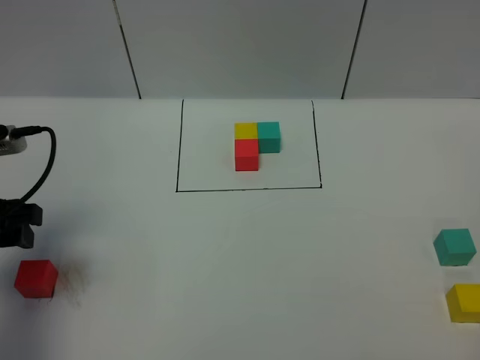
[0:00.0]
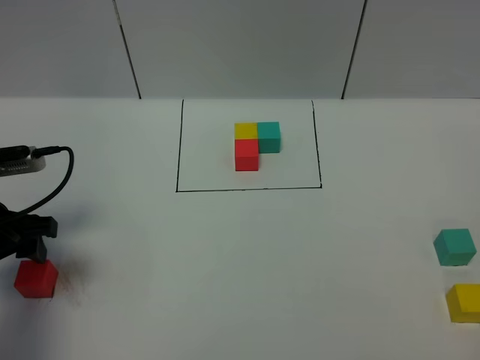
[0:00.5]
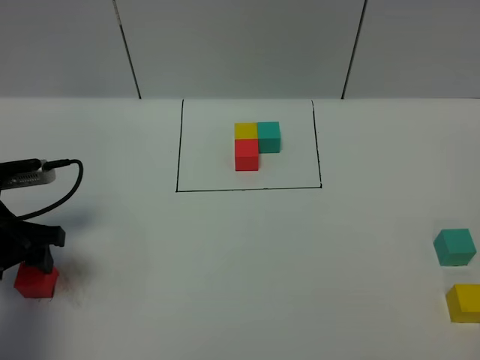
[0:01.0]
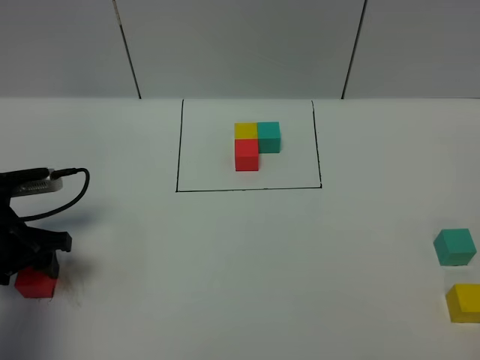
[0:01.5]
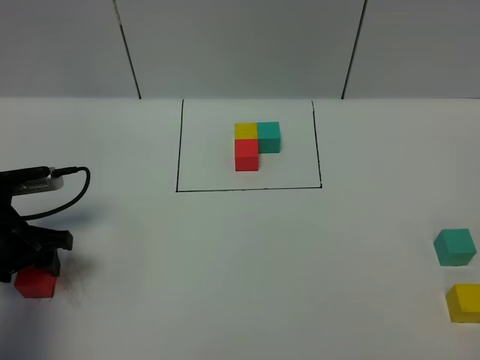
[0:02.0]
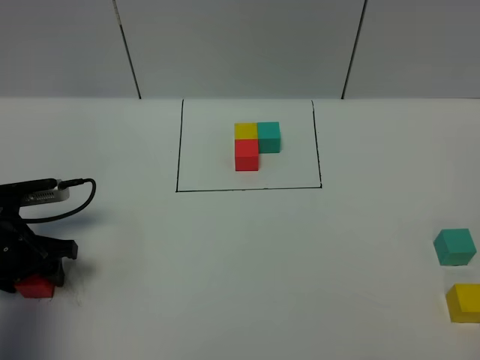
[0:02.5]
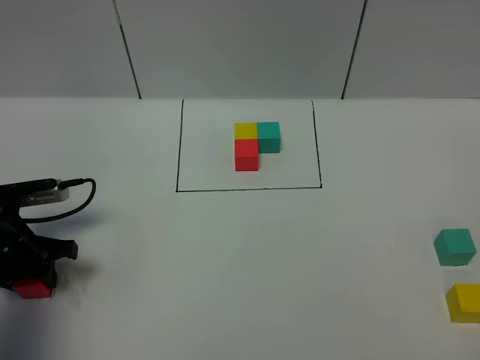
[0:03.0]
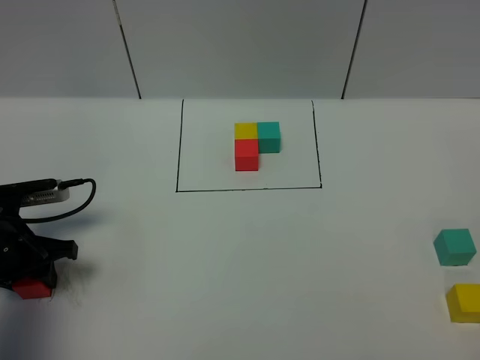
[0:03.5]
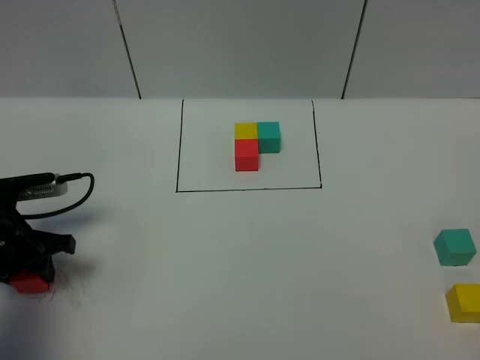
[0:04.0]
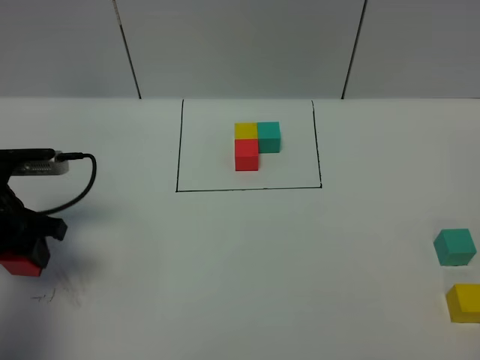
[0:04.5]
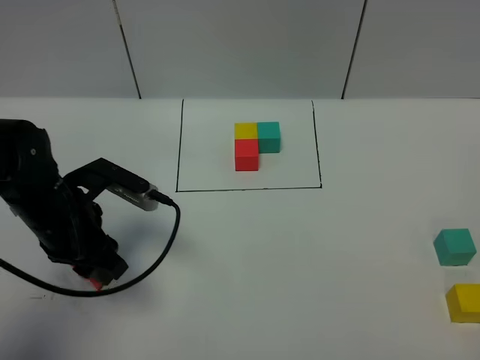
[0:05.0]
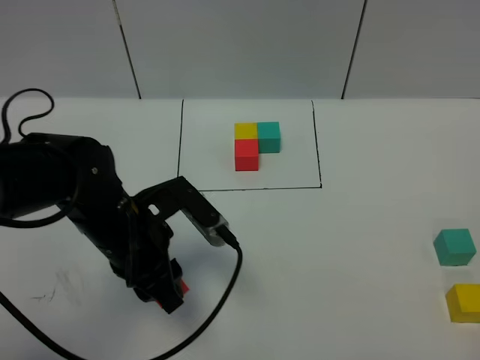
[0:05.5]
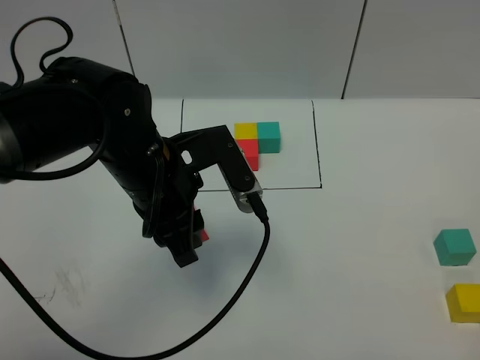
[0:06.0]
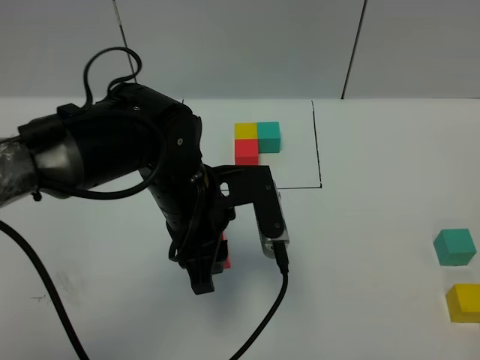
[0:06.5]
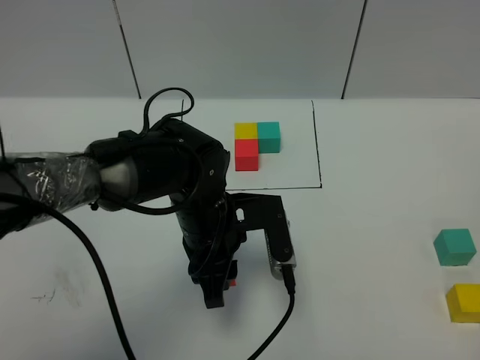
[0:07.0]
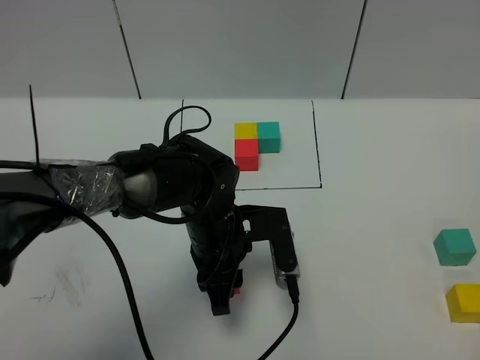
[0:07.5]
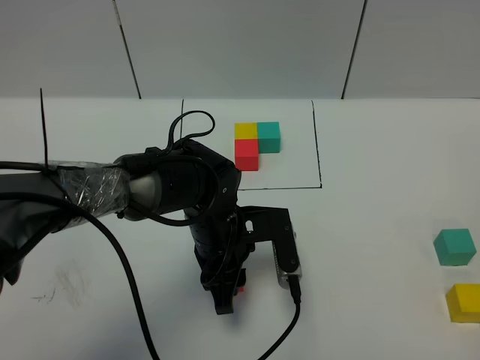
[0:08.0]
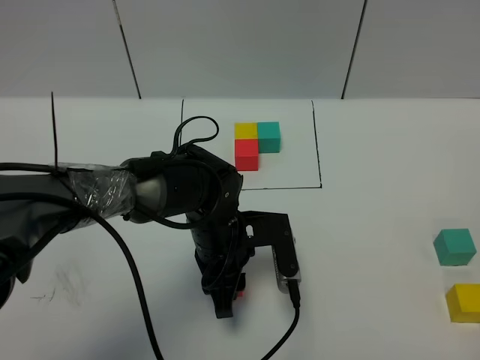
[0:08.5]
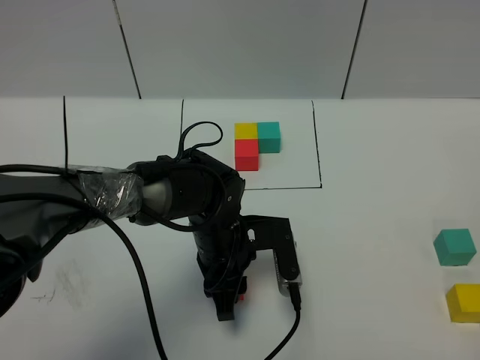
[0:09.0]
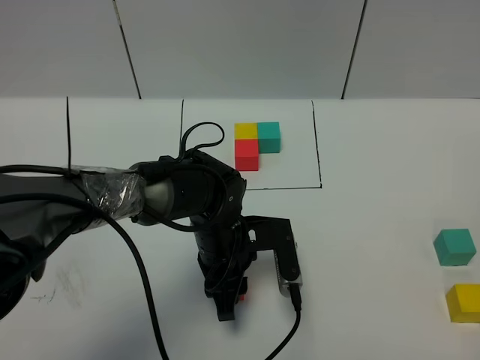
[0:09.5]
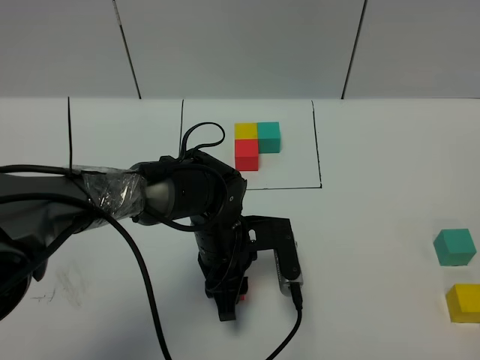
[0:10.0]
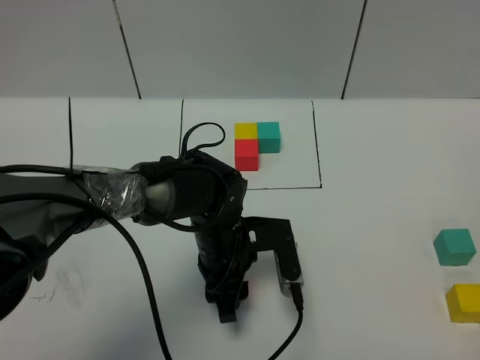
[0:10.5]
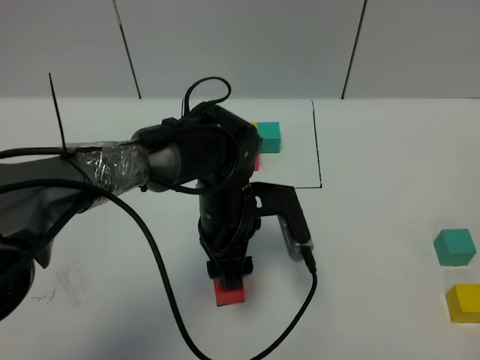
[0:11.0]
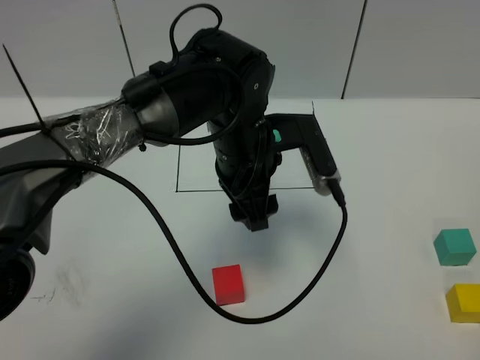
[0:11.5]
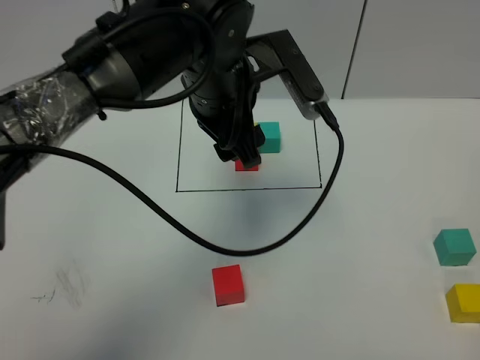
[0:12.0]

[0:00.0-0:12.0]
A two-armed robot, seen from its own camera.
Task of the whole recording: According to the building block template in front, assemble the scattered blocks together.
Step, 0:00.0 to 0:11.0: Put the red cube in the center of the table.
0:00.0 to 0:02.0: The left gripper heads downward, covering some 10 cm.
0:02.0 to 0:04.0: The grippers make only small movements.
0:04.0 to 0:06.0: The left gripper shifts about 25 cm to the right and upward.
0:06.0 to 0:08.0: The left gripper heads downward and to the right, covering about 15 cm.
0:08.0 to 0:10.0: The grippers make only small movements.
0:10.0 to 0:12.0: The left gripper shifts approximately 20 cm upward.

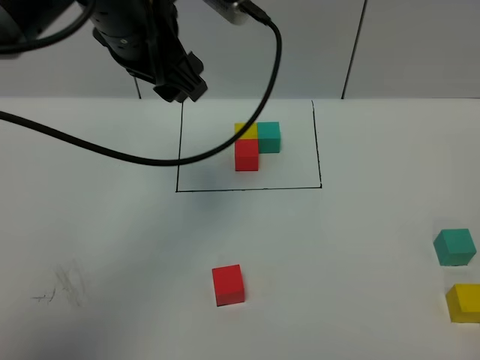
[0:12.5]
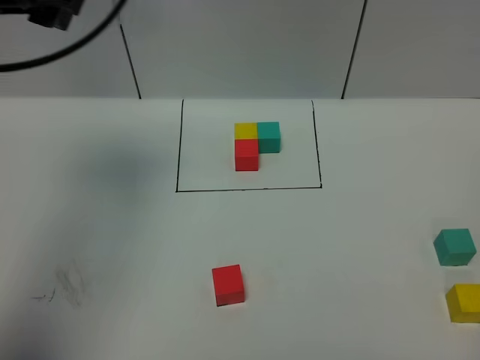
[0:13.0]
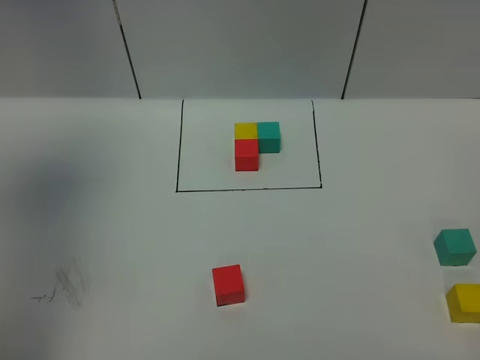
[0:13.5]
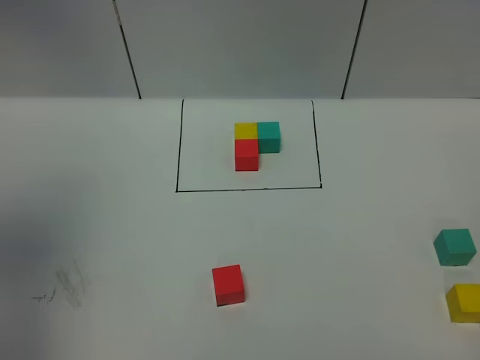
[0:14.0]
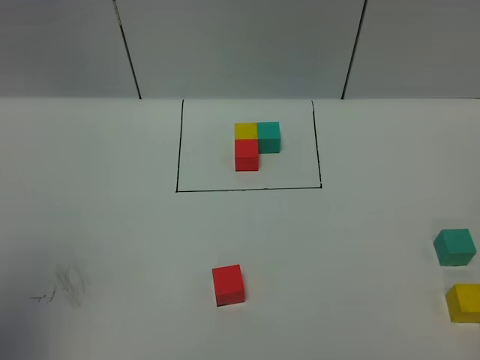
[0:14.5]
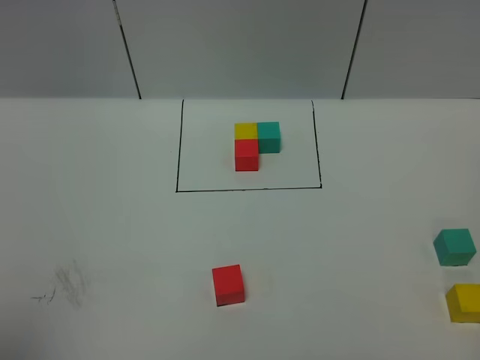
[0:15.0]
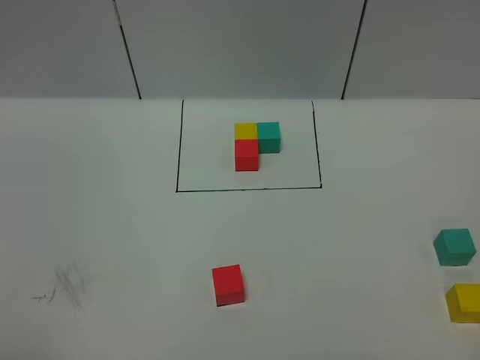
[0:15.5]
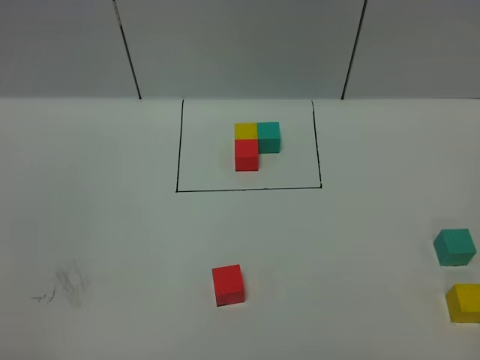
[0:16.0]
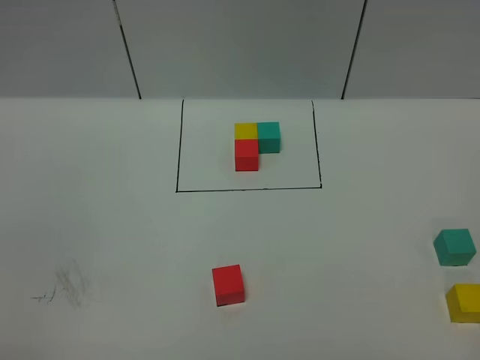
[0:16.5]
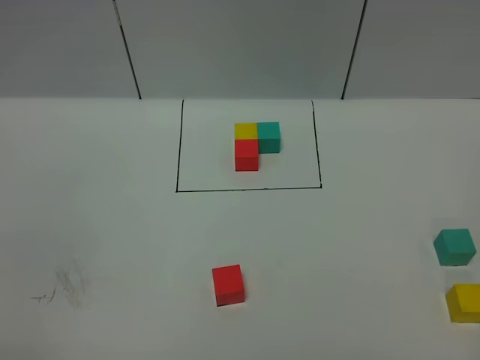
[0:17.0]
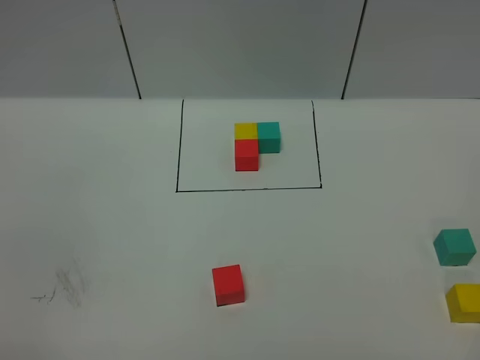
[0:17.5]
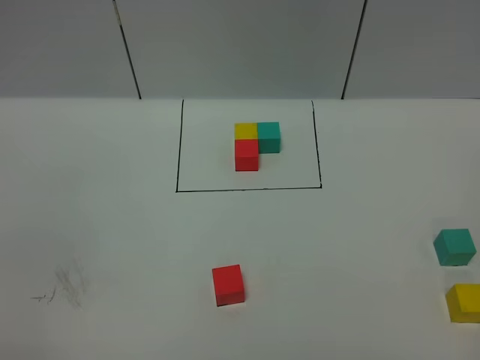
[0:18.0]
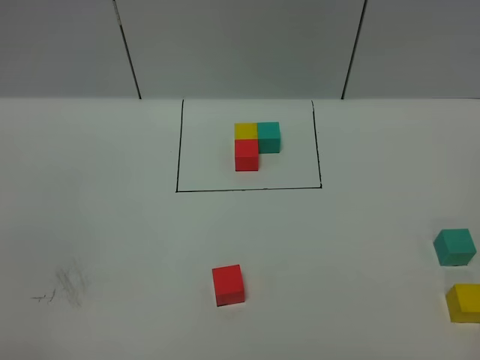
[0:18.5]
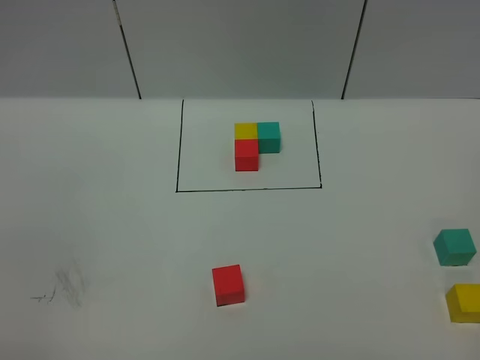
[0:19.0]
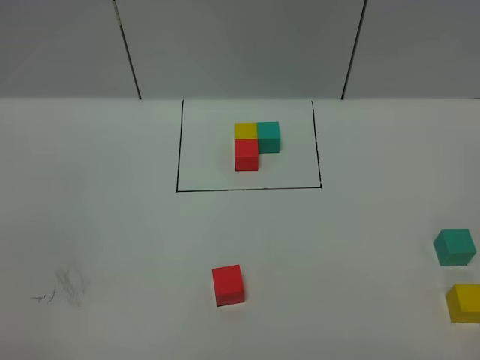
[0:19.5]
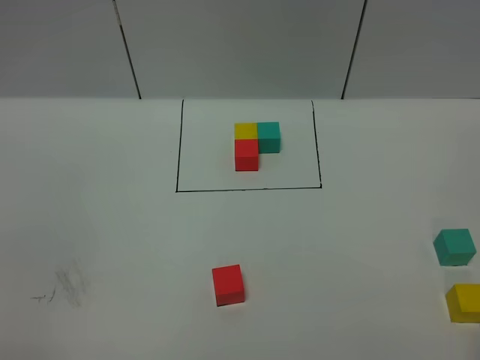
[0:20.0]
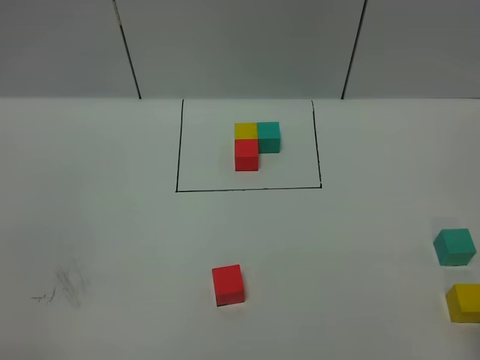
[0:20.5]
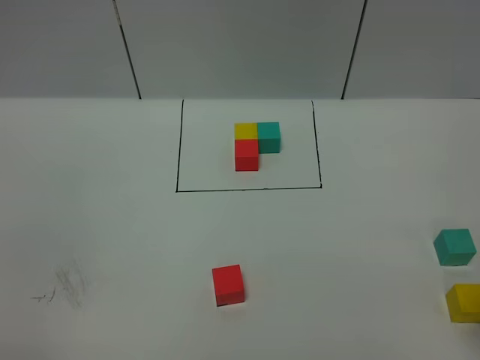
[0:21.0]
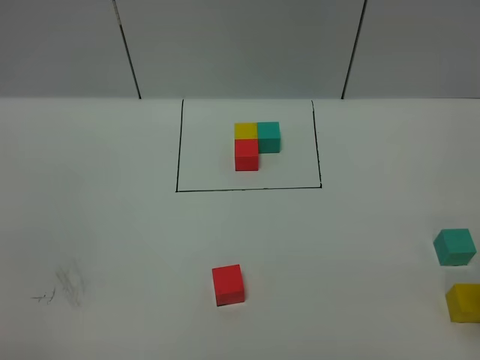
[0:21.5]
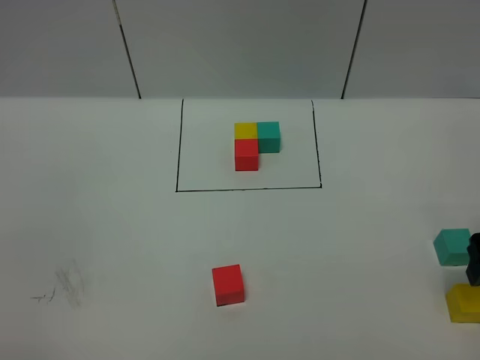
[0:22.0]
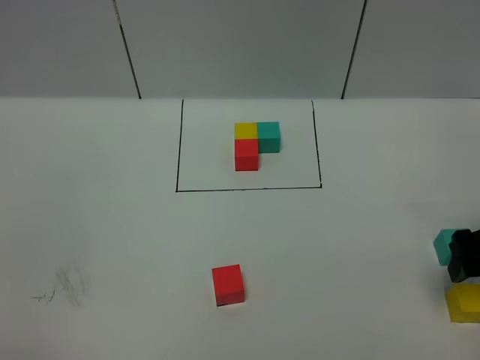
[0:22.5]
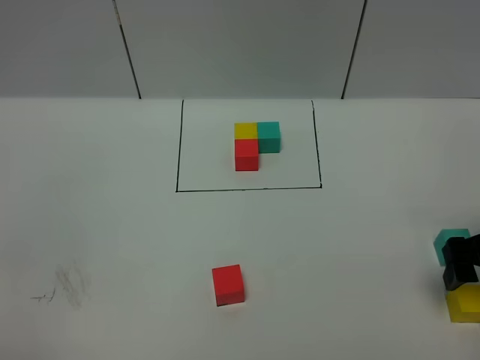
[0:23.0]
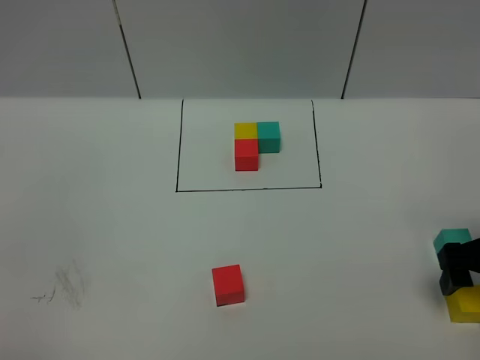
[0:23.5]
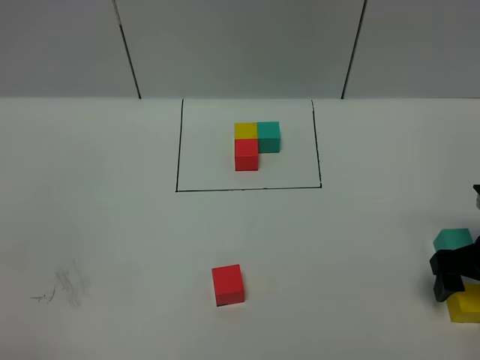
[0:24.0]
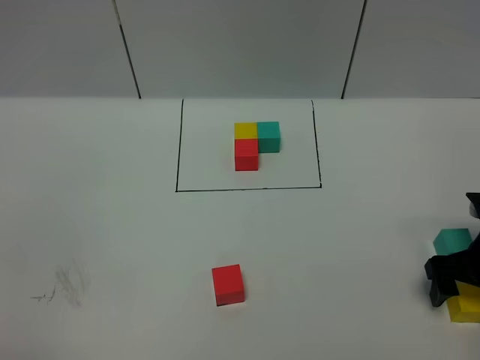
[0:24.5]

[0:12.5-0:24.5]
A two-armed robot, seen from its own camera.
Task of the whole recording: According to the building block template in front, assemble the scattered blocks together.
0:12.5 to 0:14.5: The left gripper is displaced backward, to the left and upward by about 40 cm.
0:14.5 to 0:16.5: The left gripper is displaced downward and backward by roughly 25 cm.
0:16.5 to 0:18.5: Neither gripper changes place.
0:20.5 to 0:22.5: The right gripper shifts roughly 15 cm forward and downward.
0:22.5 to 0:24.5: The right gripper goes about 10 cm downward.

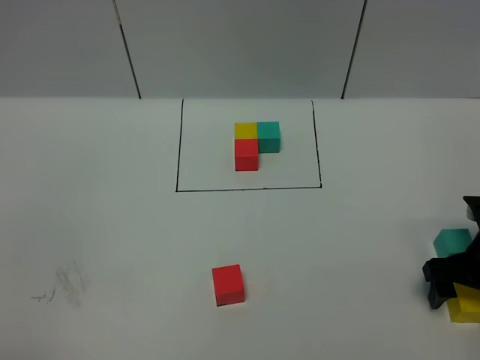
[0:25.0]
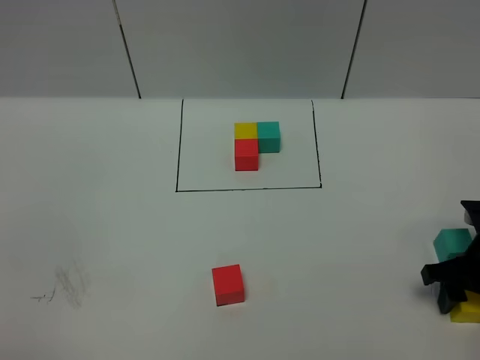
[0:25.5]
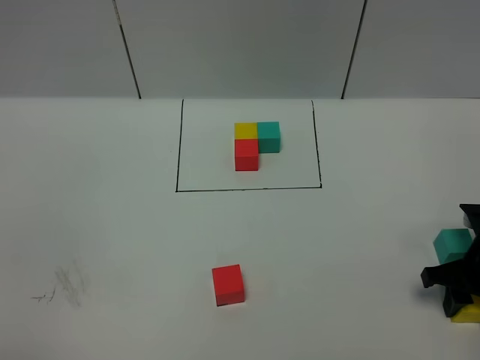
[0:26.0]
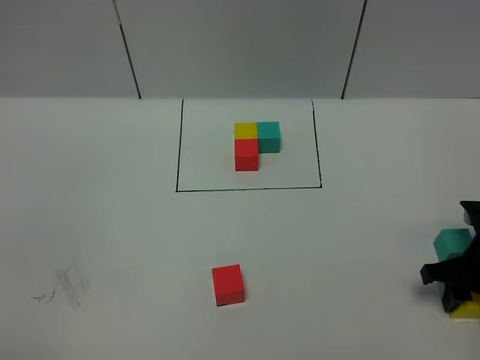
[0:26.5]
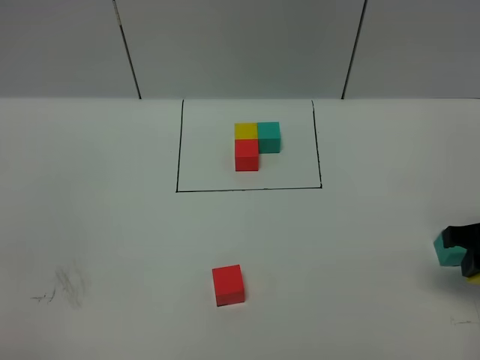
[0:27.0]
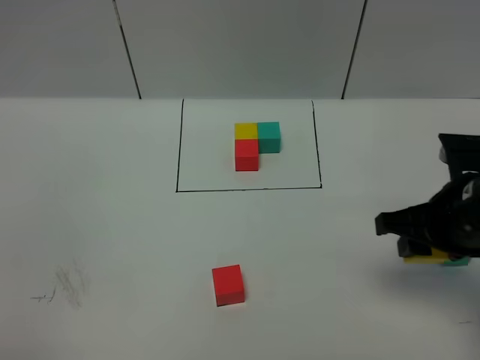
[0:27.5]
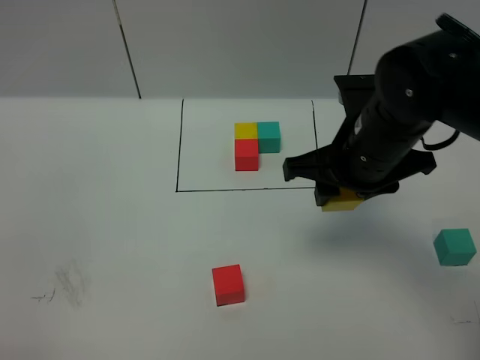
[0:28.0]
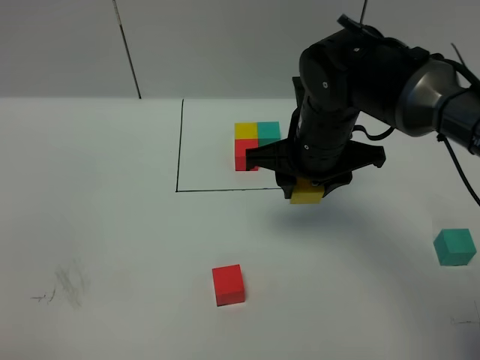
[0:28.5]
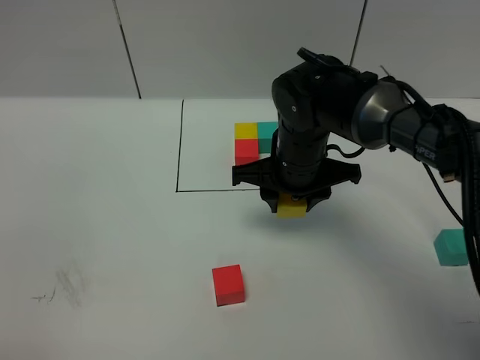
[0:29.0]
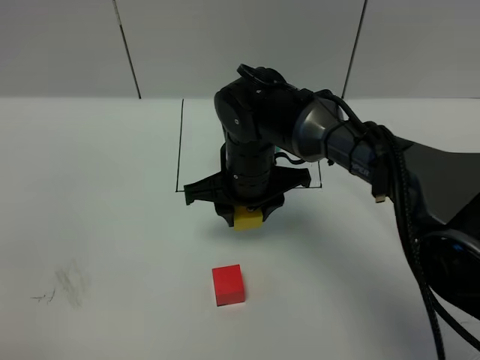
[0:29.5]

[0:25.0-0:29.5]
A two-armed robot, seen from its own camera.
Task of the whole recording: According to the building block template in front, assemble the scattered blocks together.
0:25.0 to 0:27.0: The right gripper travels upward by some 10 cm, and closes.
0:27.0 to 0:29.5: The right gripper travels to the left by approximately 30 cm.
